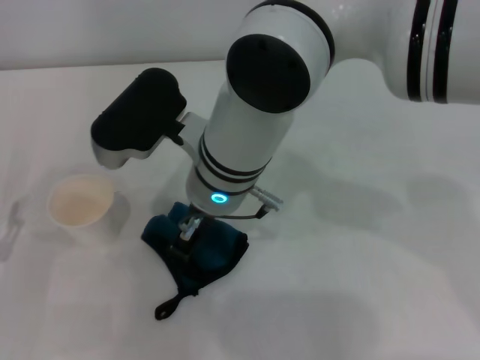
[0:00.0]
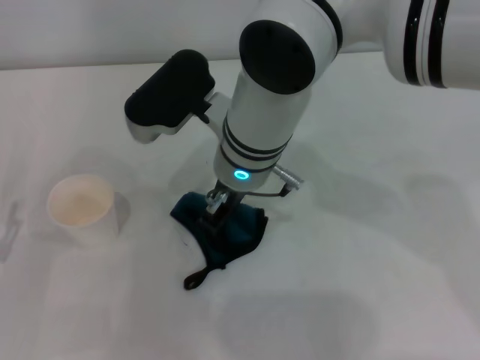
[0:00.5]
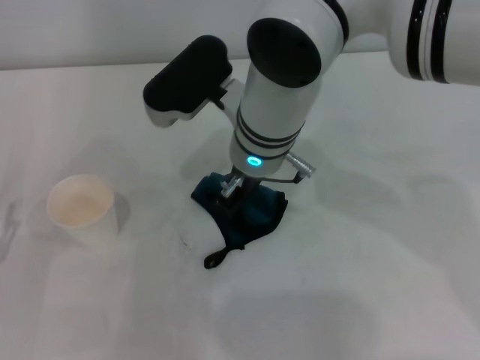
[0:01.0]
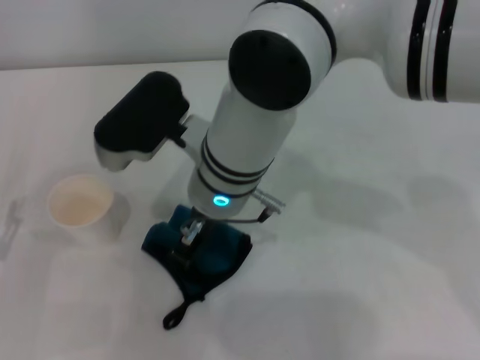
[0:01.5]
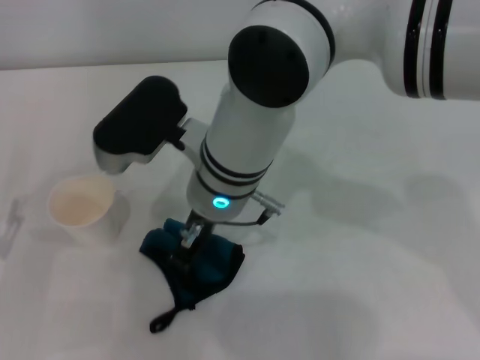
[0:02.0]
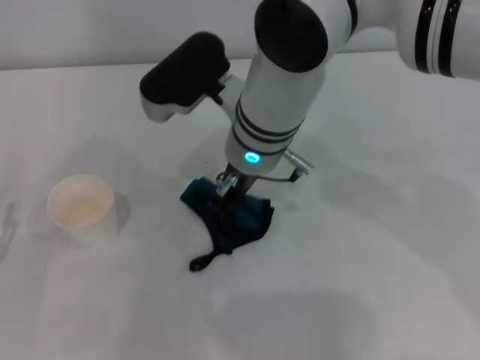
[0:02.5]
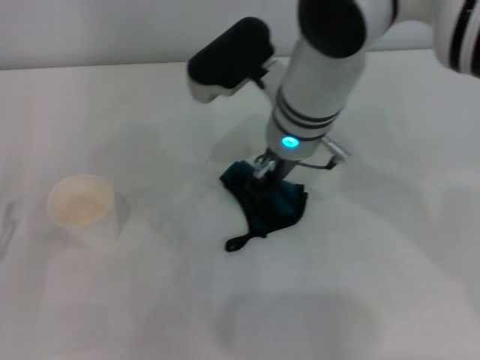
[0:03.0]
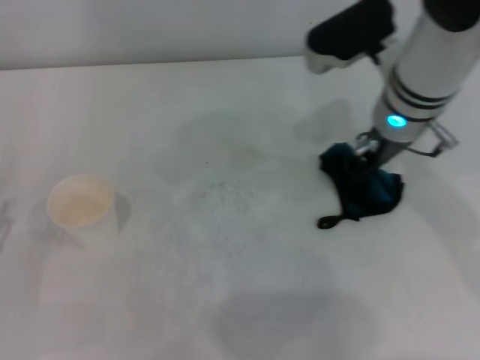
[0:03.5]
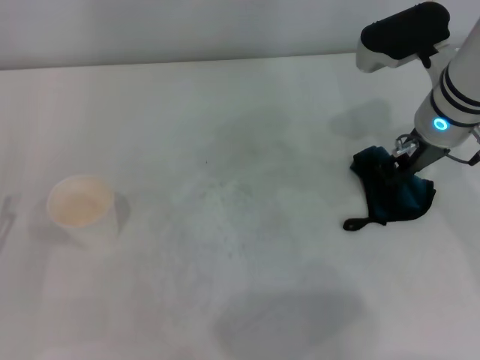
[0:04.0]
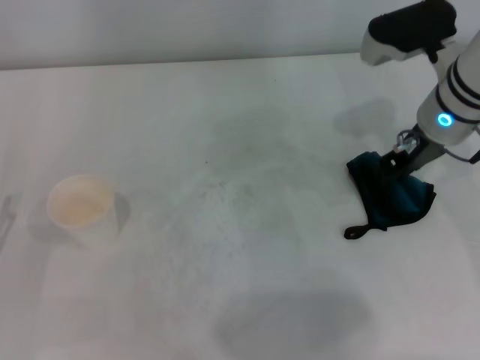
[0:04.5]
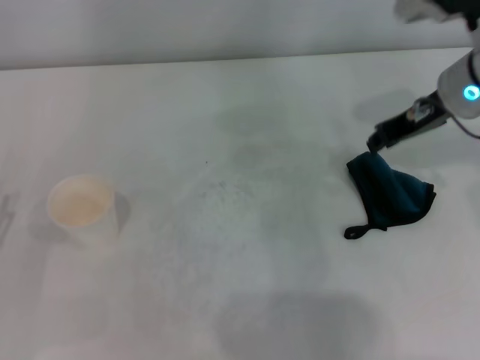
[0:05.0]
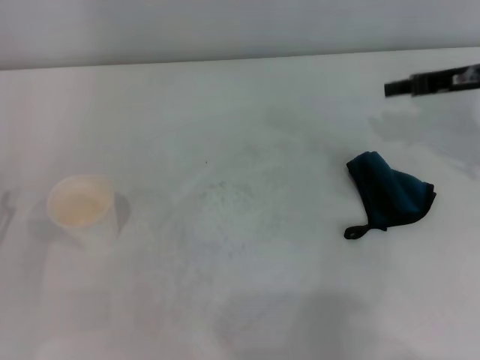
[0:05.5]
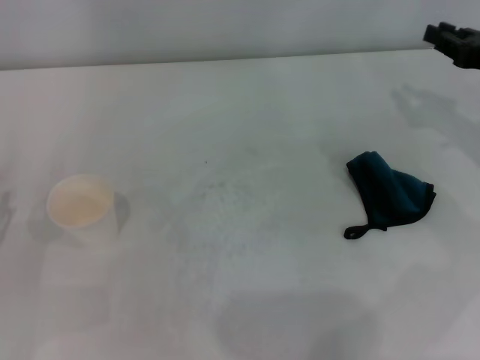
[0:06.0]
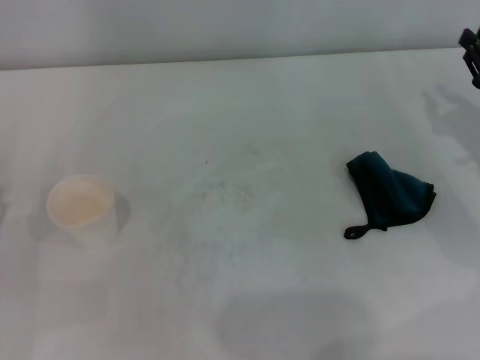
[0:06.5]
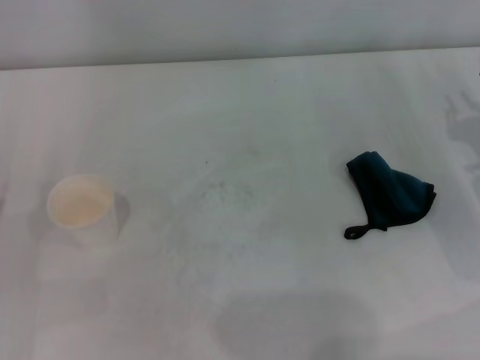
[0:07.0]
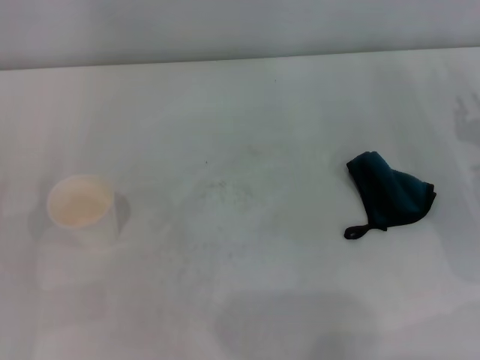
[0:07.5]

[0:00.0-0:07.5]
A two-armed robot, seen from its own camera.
Step, 0:00.0 to 0:03.0: Wipe the stains off the table with the right gripper.
Step, 0:03.5 to 0:04.0: Place the rag on the table with the right gripper.
0:00.0 to 0:02.0: The grippers make only small movements.
0:02.0 to 0:04.0: The right gripper moves to the right, approximately 20 cm.
0:04.0 to 0:05.5: The right gripper shifts about 10 cm to the right.
0:05.5 to 0:07.5: The right gripper shifts roughly 15 cm downward and backward.

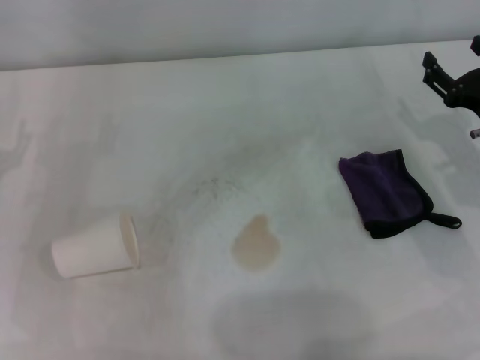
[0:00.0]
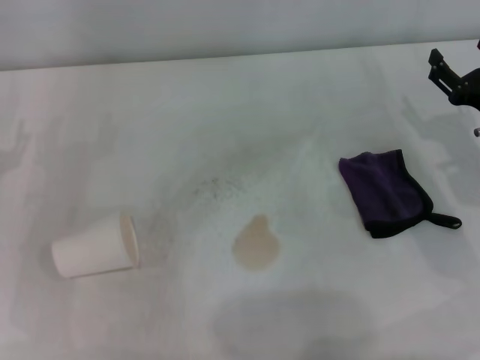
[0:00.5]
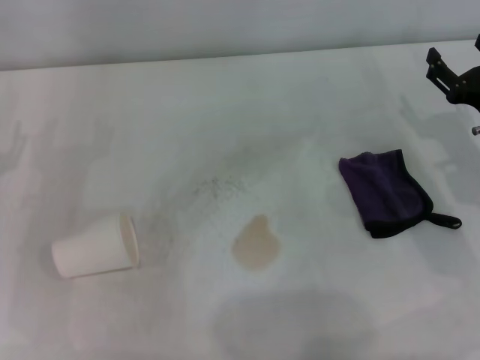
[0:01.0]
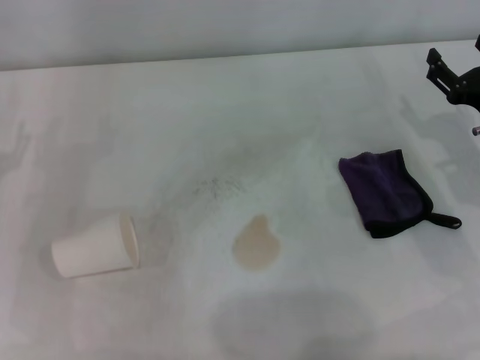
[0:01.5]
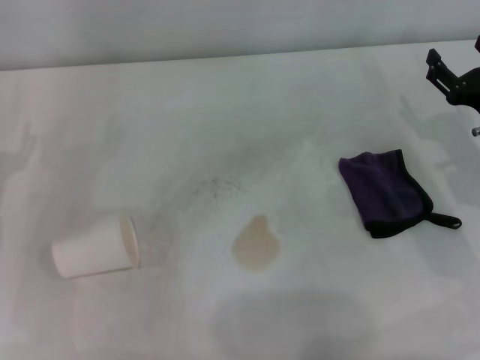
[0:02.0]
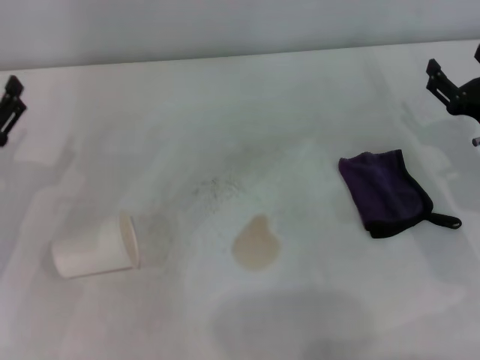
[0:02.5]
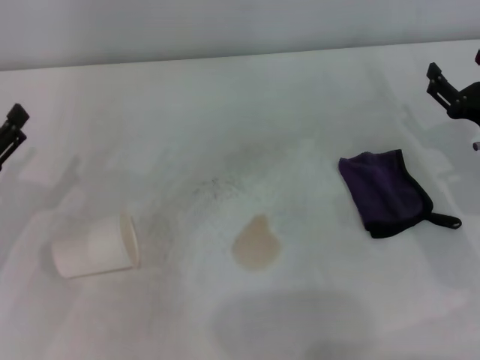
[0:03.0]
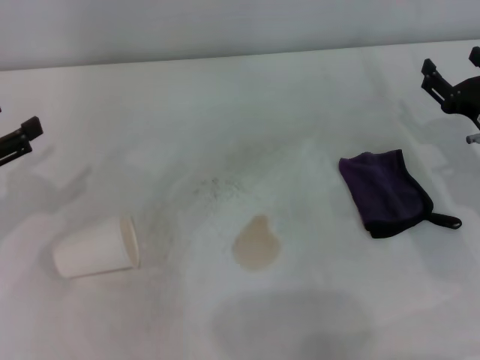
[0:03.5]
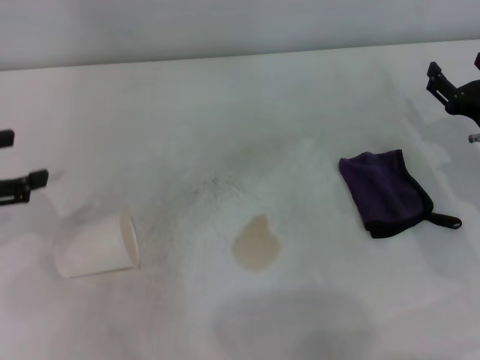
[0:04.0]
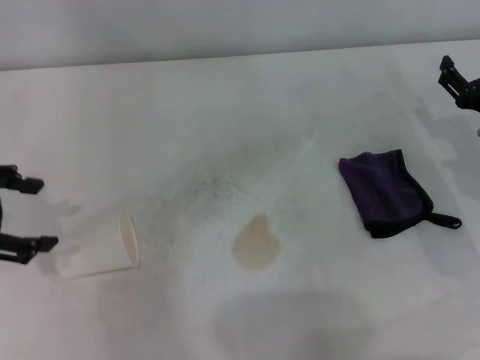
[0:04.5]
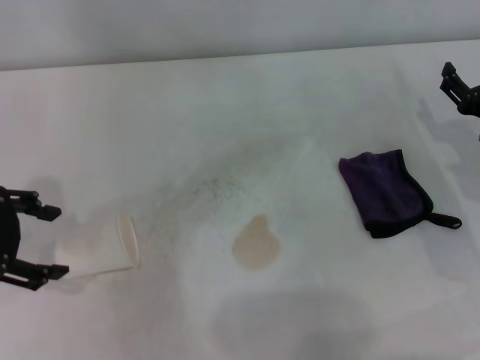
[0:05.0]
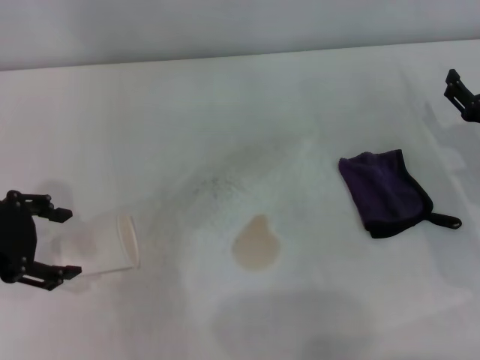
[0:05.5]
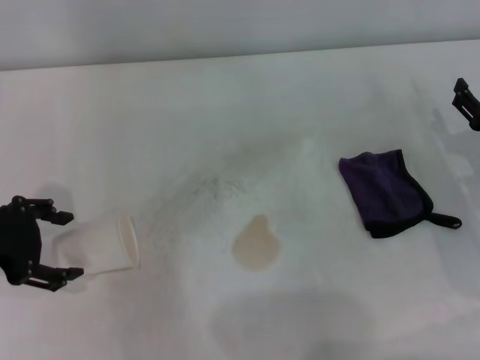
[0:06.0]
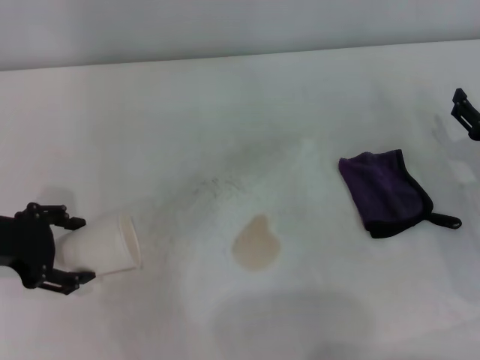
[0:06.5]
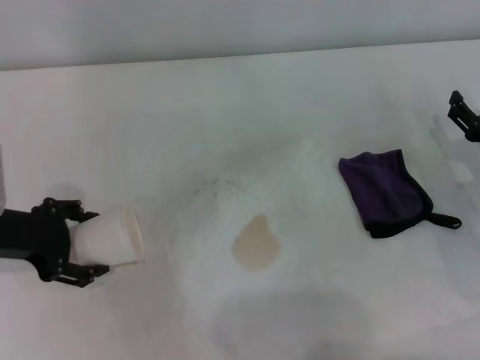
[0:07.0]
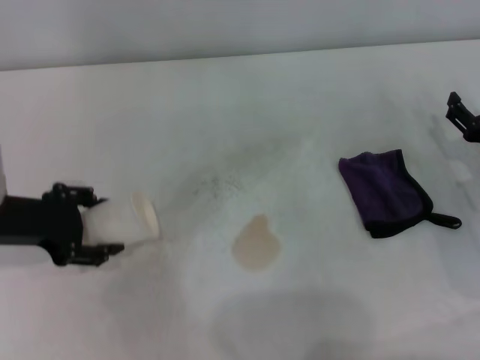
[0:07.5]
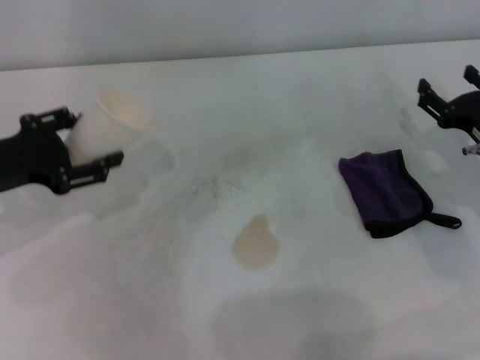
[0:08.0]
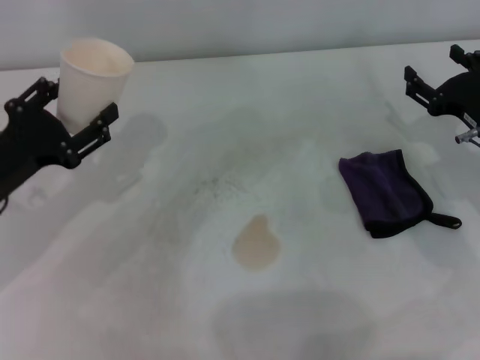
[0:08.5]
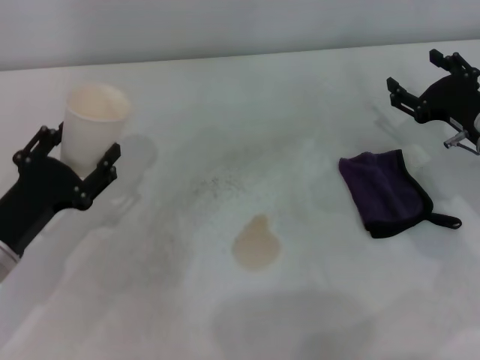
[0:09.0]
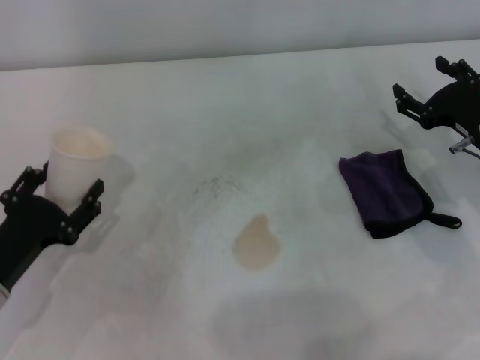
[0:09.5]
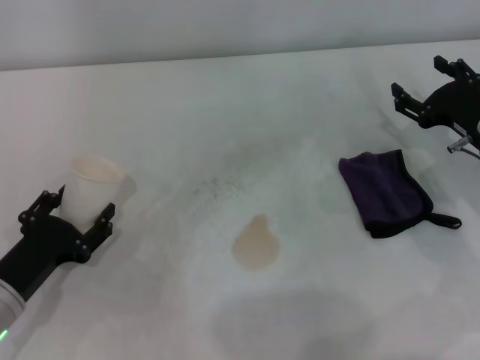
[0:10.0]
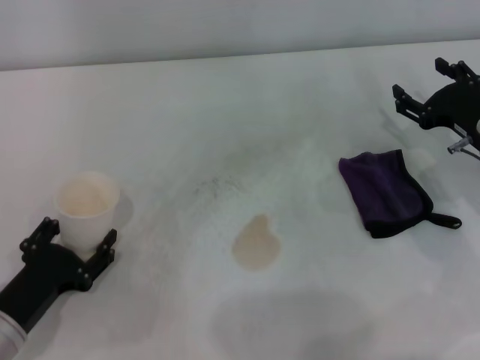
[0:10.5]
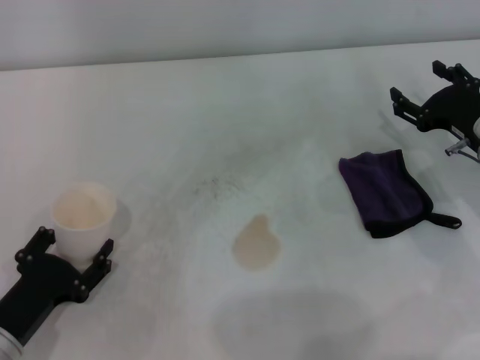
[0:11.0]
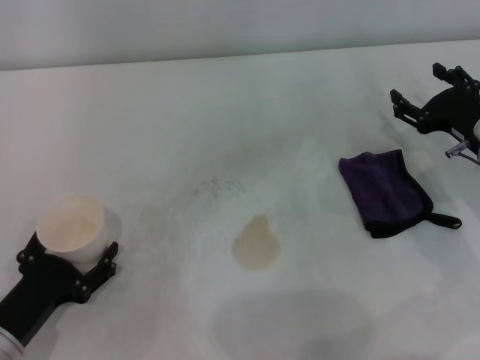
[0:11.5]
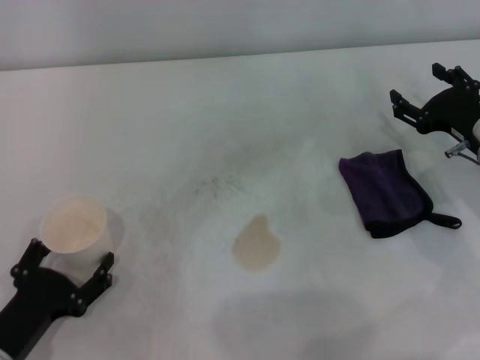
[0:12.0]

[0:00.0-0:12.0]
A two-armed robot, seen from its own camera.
Step, 0:00.0 to 0:06.5: Grasp the paper cup with the left gripper.
Step, 0:07.5 to 0:11.5: Stand the paper cup upright with the left gripper.
0:00.0 to 0:02.0: Neither gripper changes place.
0:02.0 to 0:04.0: The left gripper moves upward, about 10 cm.
0:04.0 to 0:06.0: The left gripper goes approximately 5 cm to the right.
0:06.0 to 0:08.0: The left gripper closes.
0:08.0 to 0:10.0: The left gripper heads downward and backward, covering some 15 cm.
0:10.0 to 0:12.0: The left gripper shifts roughly 5 cm backward, and opens.

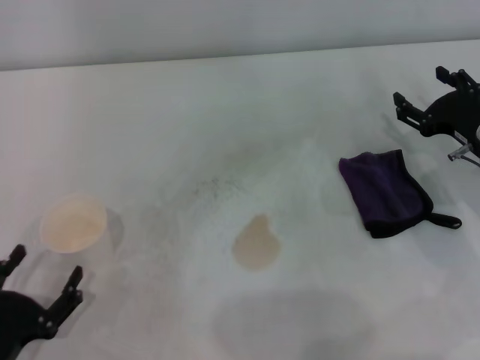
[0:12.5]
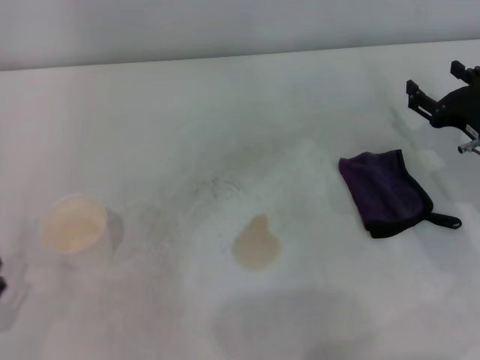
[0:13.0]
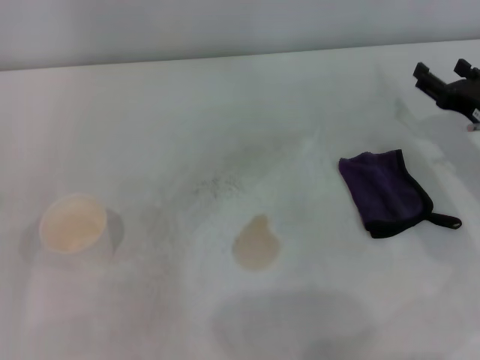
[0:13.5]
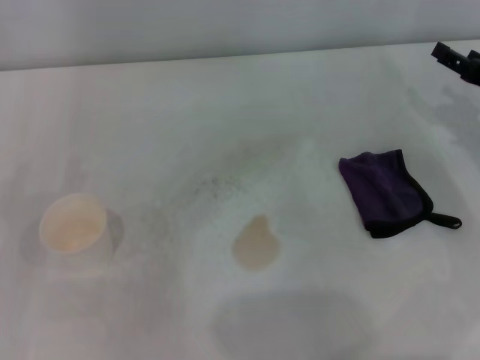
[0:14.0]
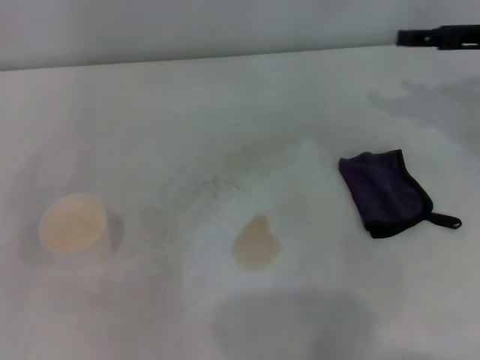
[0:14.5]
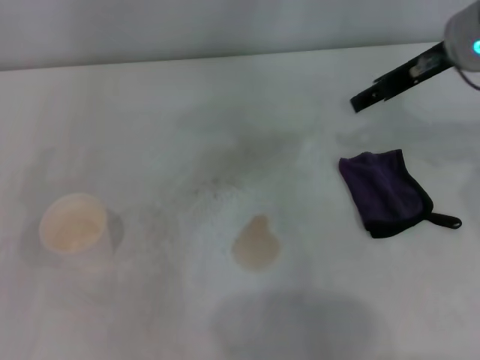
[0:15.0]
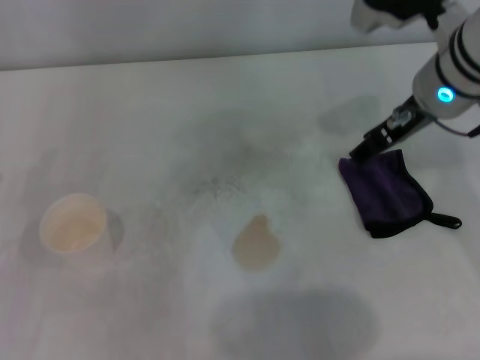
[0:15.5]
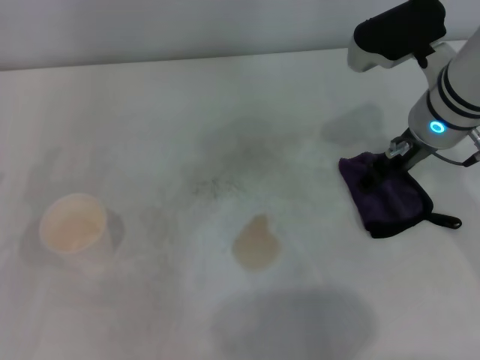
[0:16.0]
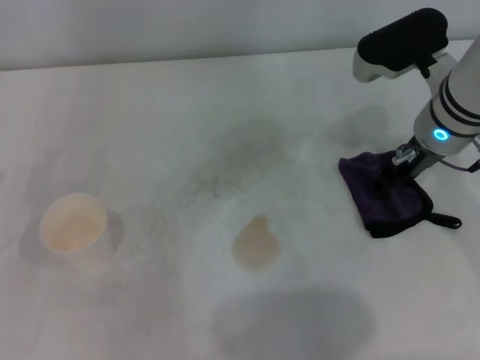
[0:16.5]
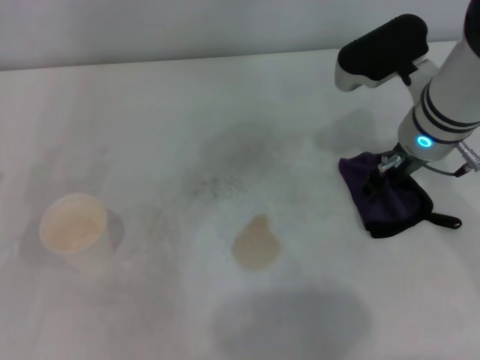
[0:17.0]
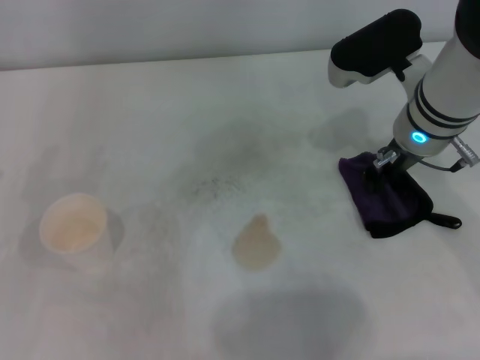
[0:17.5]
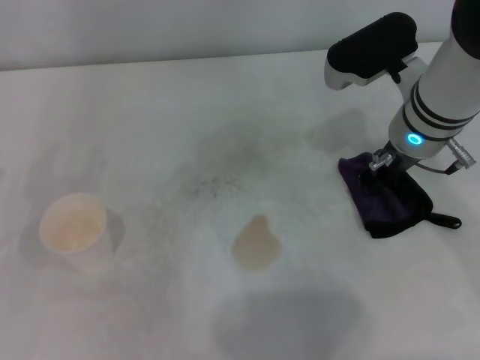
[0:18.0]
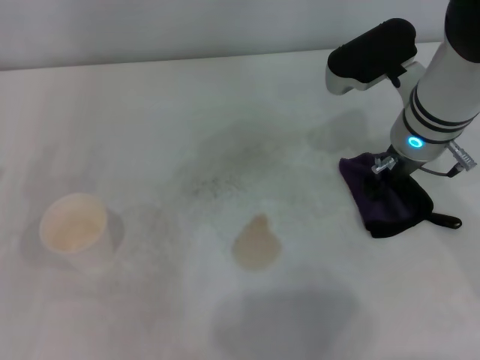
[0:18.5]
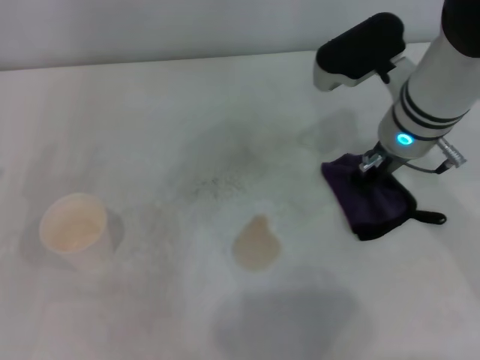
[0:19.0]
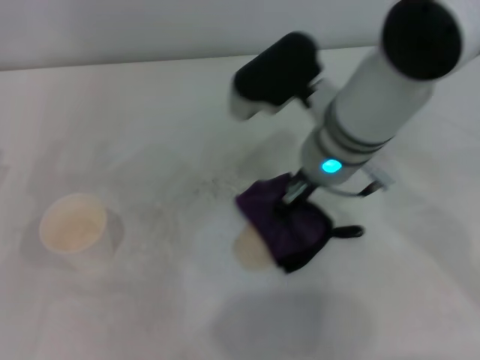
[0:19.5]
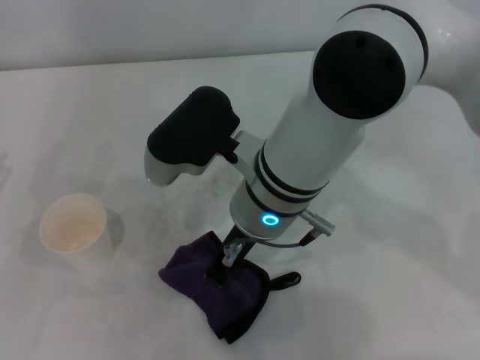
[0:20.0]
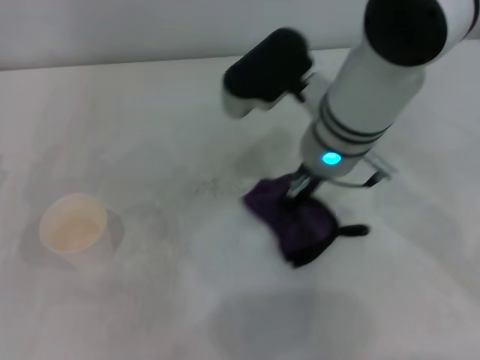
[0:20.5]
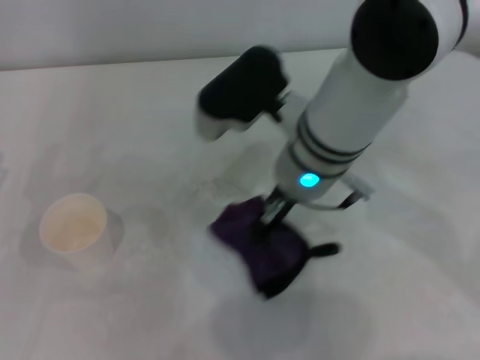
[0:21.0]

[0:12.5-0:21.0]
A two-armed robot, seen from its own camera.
Step, 0:12.5 to 0:18.5: Grasp the rag with the right gripper.
0:12.5 to 0:14.5: The right gripper travels upward by about 15 cm; the left gripper moves forward, to the left and upward, about 15 cm.
0:14.5 to 0:16.5: The right gripper is displaced to the left by some 15 cm.
0:16.5 to 0:19.0: The right gripper closes up.
0:19.0 to 0:21.0: The right gripper travels to the left by roughly 10 cm.
